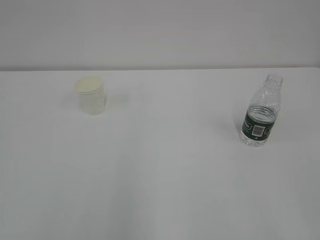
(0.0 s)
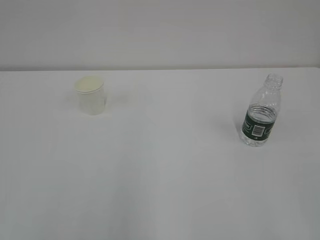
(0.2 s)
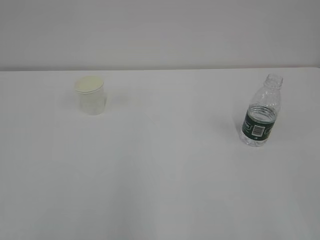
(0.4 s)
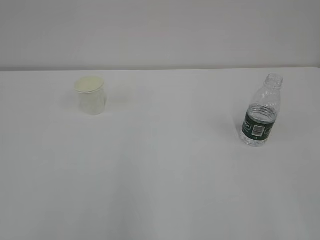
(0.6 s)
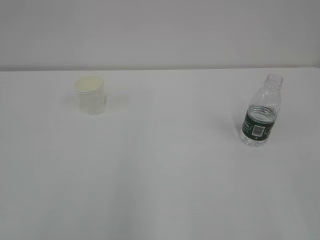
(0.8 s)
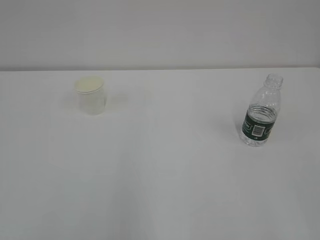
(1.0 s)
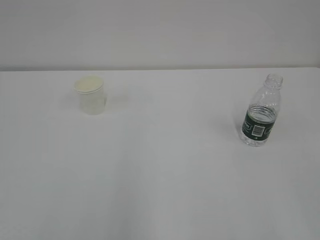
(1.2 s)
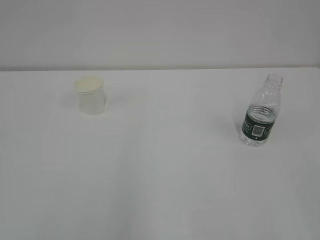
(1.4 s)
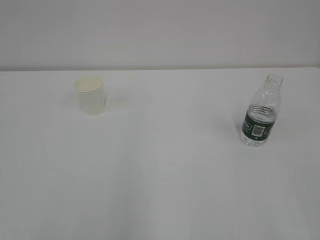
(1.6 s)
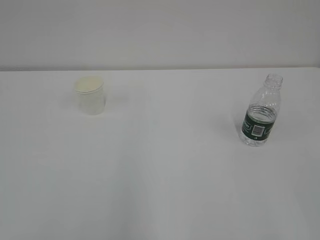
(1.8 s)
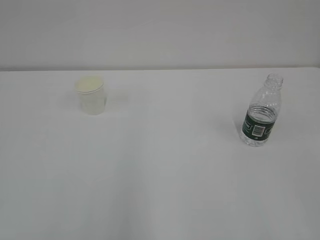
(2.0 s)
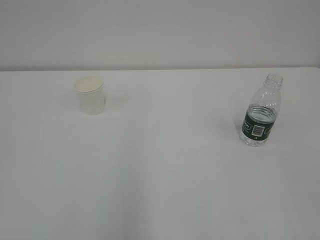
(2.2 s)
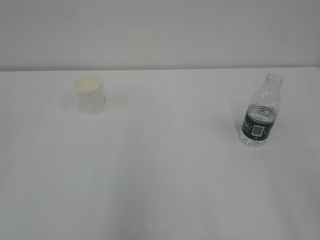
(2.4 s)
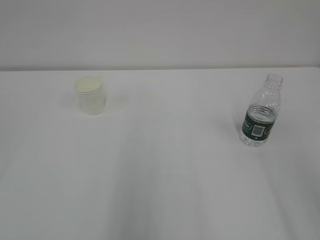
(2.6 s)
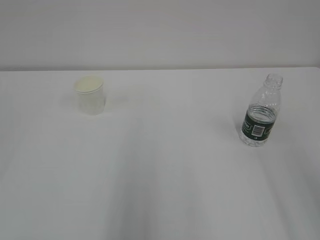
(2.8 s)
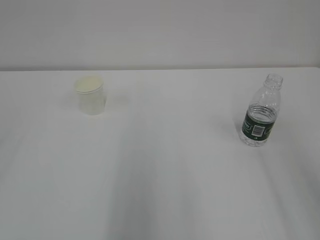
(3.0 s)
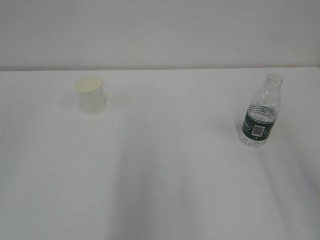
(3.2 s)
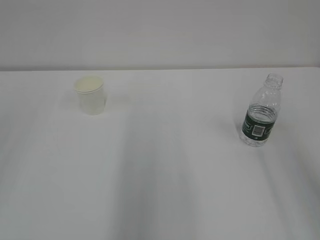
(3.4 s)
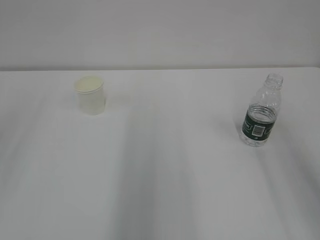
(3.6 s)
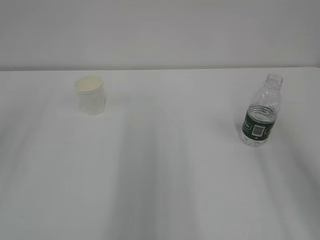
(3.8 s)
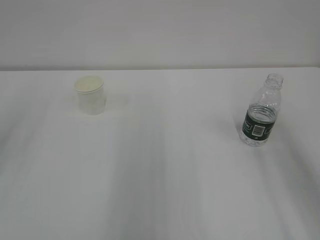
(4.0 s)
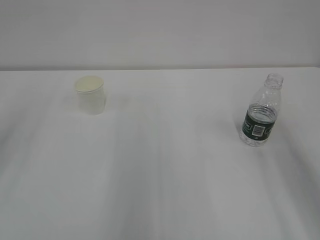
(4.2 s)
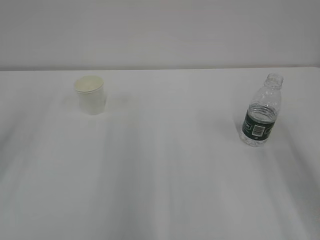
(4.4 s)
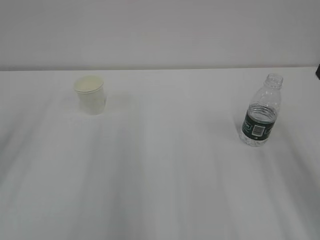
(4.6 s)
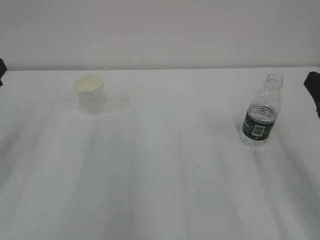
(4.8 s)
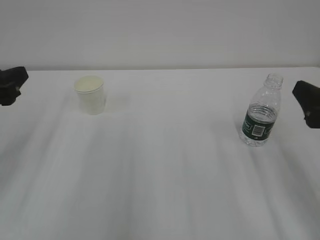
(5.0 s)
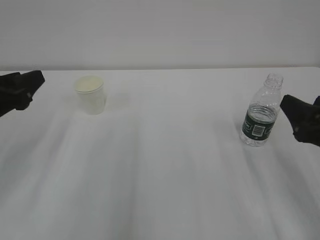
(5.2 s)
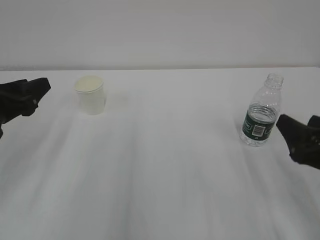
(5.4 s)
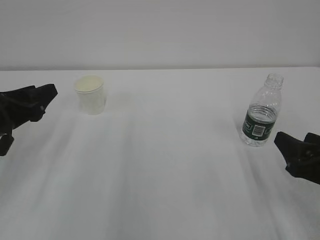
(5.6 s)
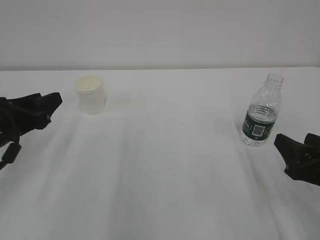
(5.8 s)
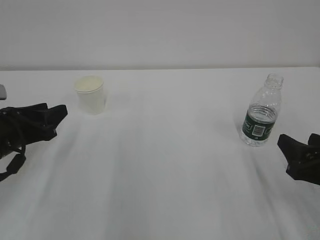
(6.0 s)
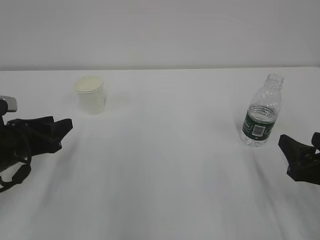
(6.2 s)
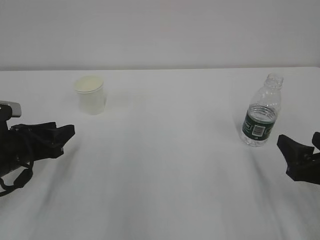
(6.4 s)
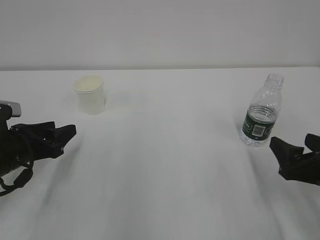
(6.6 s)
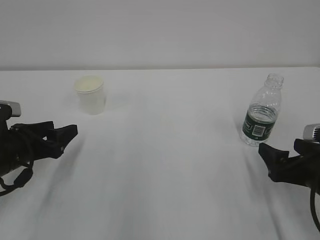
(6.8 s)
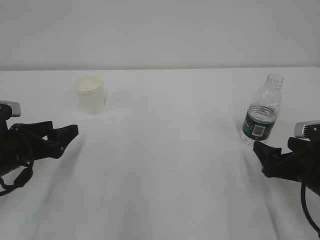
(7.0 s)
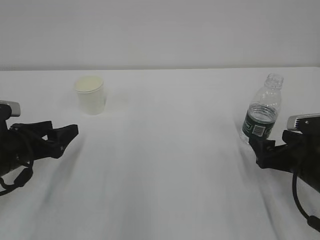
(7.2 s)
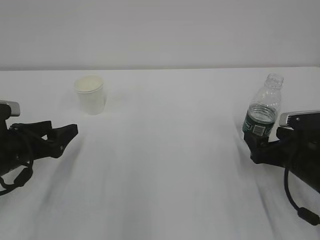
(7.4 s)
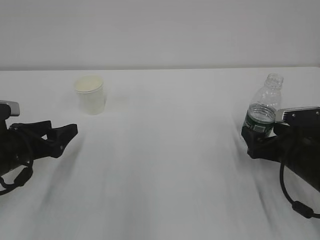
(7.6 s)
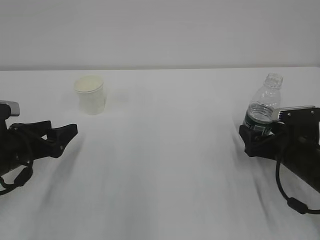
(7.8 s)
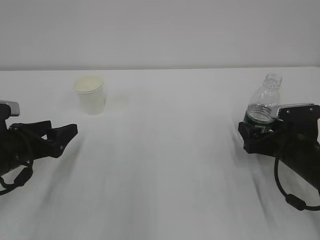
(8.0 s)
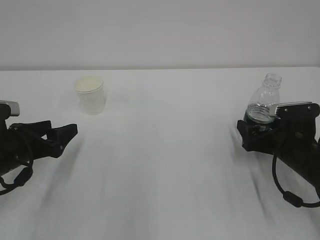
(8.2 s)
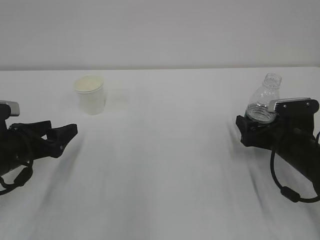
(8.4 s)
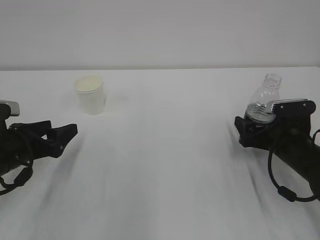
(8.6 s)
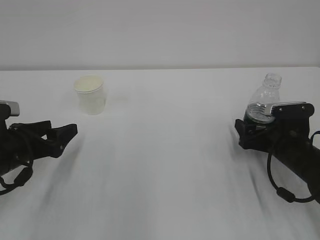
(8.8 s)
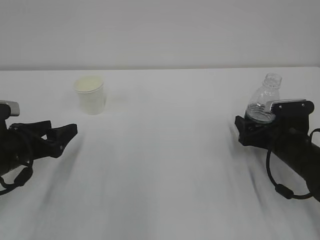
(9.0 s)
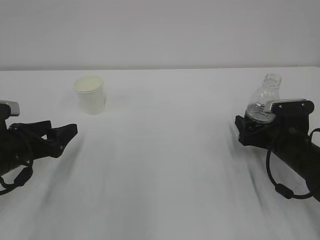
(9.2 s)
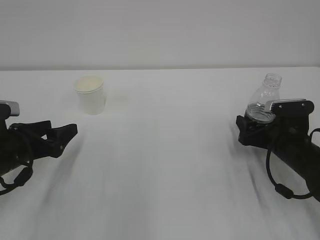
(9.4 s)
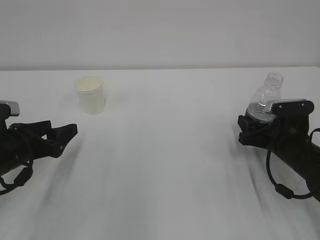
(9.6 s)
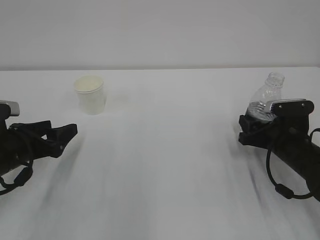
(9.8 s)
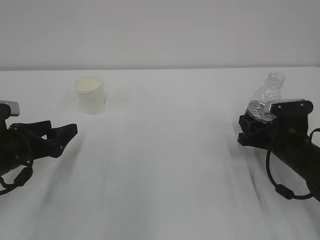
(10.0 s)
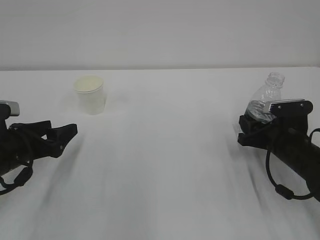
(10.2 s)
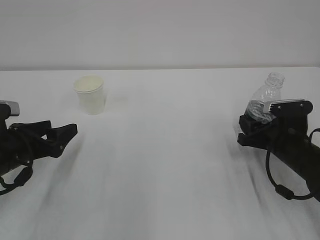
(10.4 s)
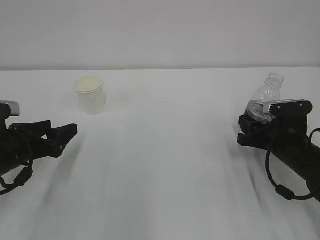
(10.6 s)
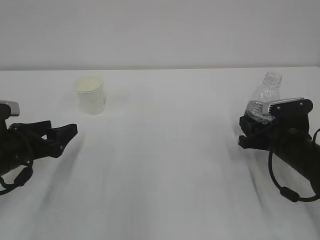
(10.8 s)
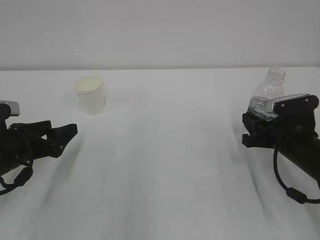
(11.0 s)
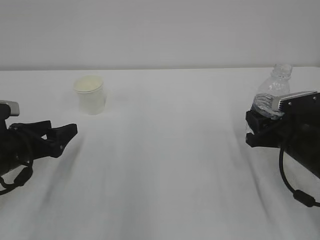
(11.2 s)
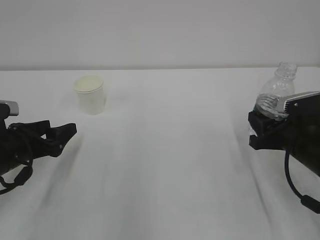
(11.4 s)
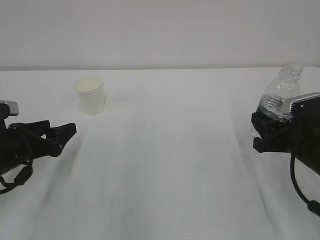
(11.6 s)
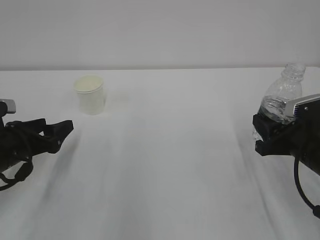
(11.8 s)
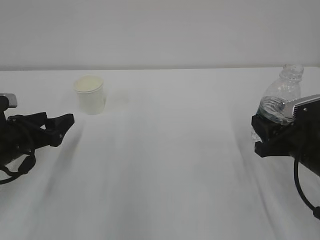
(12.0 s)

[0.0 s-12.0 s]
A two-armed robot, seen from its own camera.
4.4 to 6.0 s: Both grippers travel together downward, roughly 15 cm.
6.0 to 7.6 s: The left gripper opens; the right gripper heads forward and downward, covering roughly 10 cm, and opens up.
7.6 to 9.0 s: There are only small adjustments of the grippers.
9.0 to 10.4 s: The right gripper closes its fingers.
10.4 to 12.0 s: The right gripper shifts approximately 10 cm backward and upward.

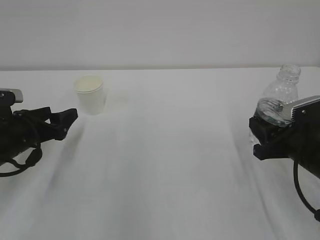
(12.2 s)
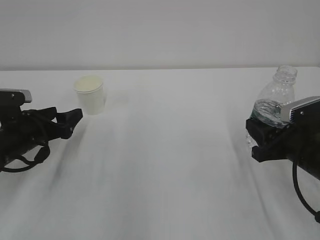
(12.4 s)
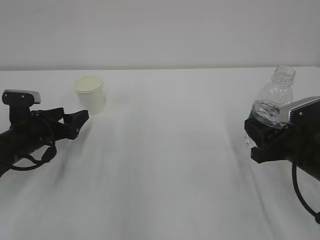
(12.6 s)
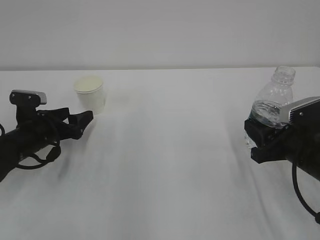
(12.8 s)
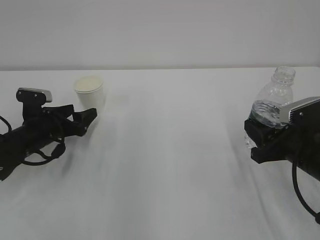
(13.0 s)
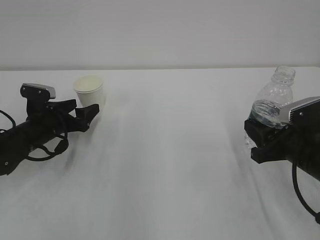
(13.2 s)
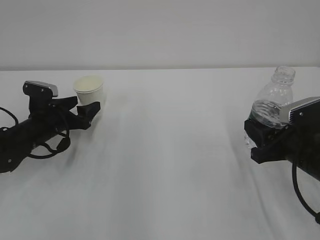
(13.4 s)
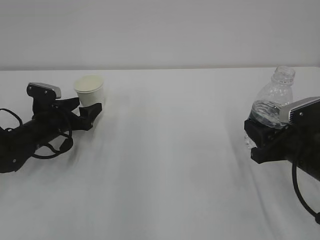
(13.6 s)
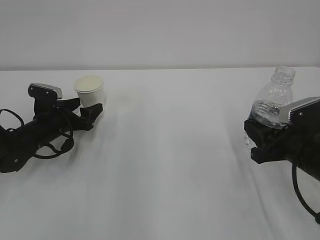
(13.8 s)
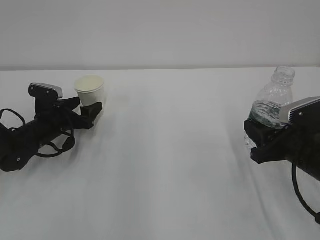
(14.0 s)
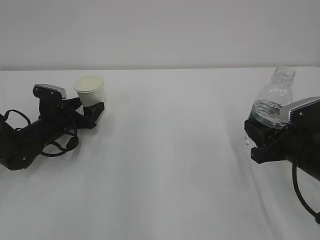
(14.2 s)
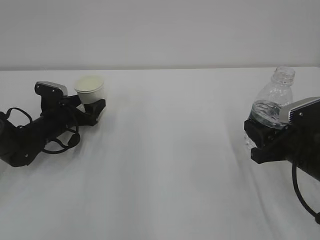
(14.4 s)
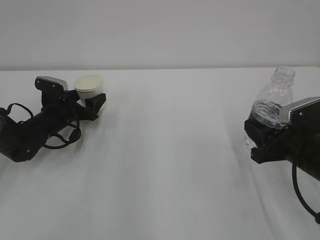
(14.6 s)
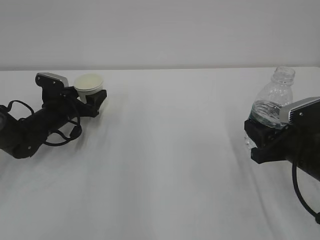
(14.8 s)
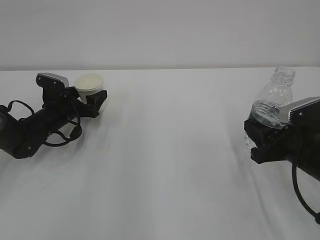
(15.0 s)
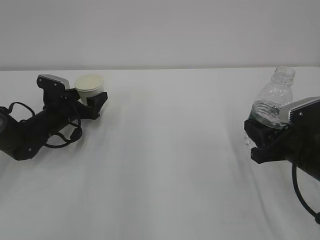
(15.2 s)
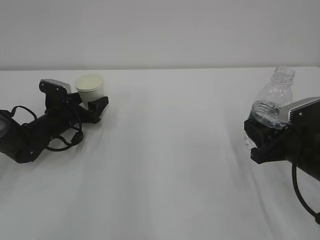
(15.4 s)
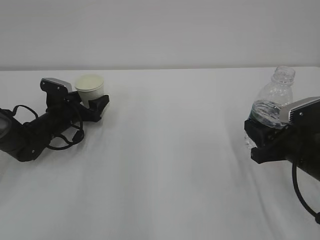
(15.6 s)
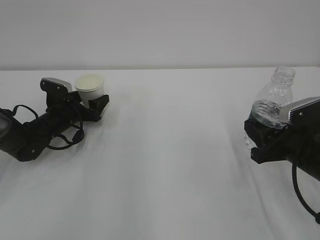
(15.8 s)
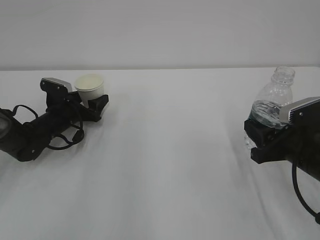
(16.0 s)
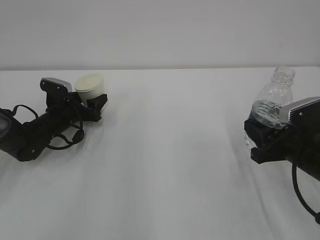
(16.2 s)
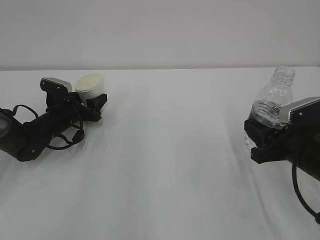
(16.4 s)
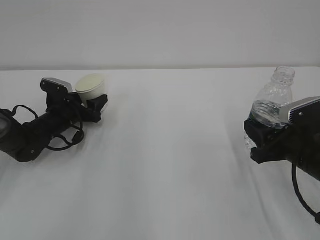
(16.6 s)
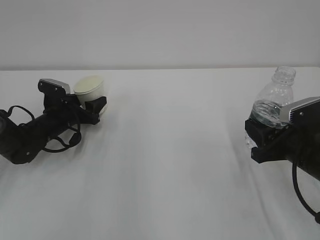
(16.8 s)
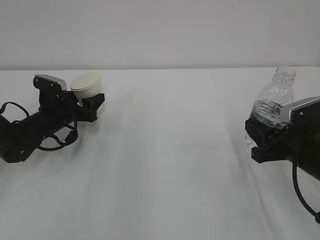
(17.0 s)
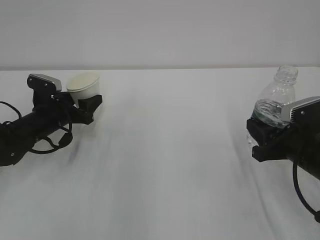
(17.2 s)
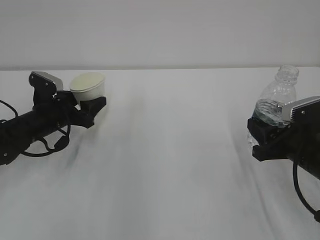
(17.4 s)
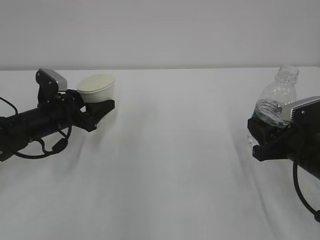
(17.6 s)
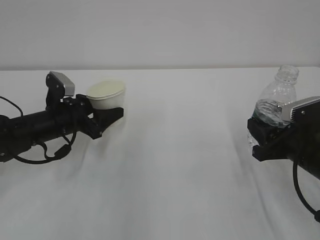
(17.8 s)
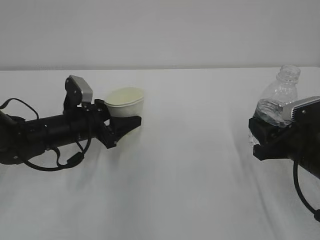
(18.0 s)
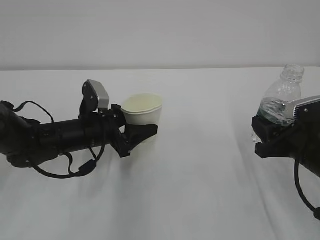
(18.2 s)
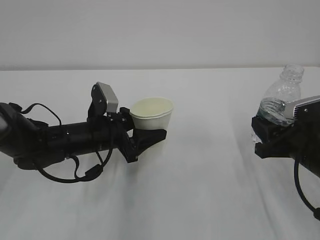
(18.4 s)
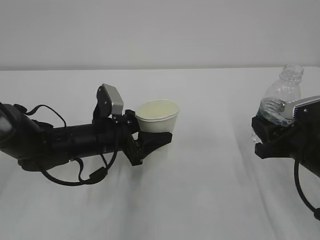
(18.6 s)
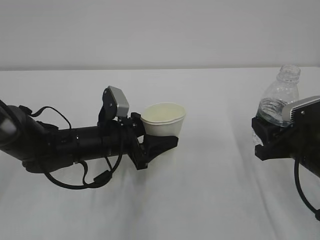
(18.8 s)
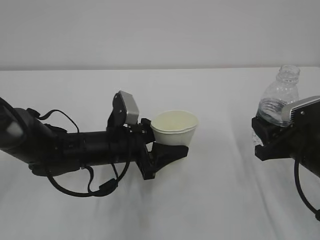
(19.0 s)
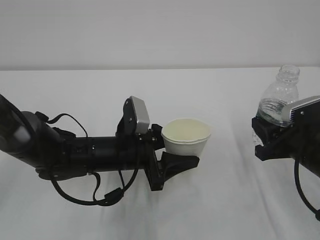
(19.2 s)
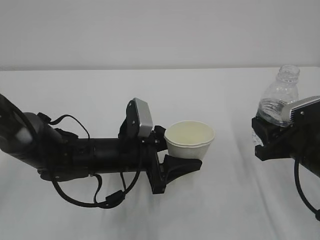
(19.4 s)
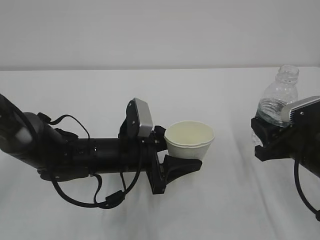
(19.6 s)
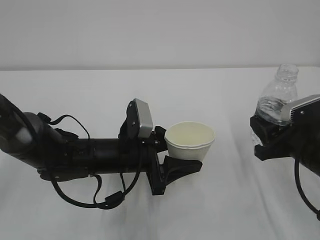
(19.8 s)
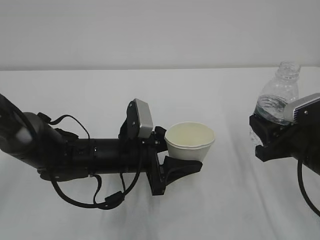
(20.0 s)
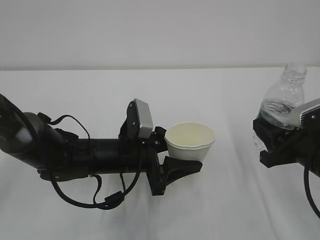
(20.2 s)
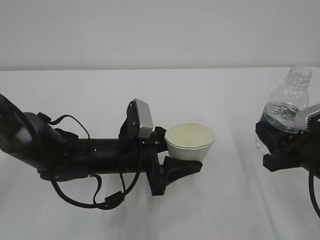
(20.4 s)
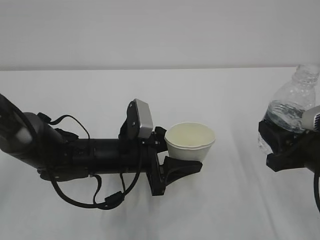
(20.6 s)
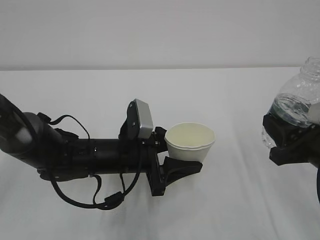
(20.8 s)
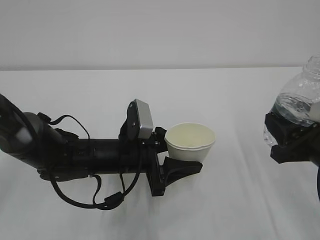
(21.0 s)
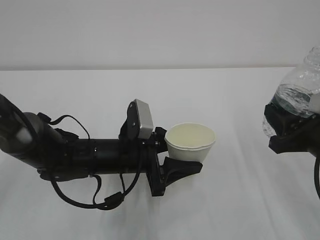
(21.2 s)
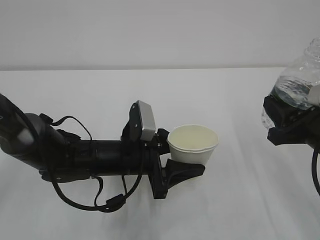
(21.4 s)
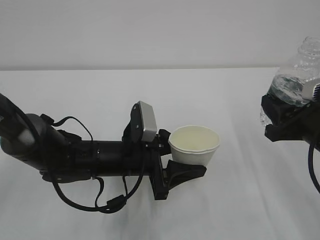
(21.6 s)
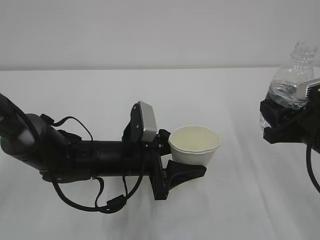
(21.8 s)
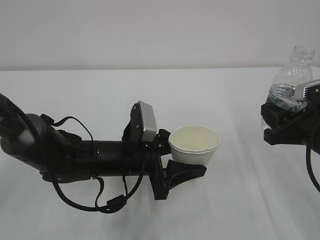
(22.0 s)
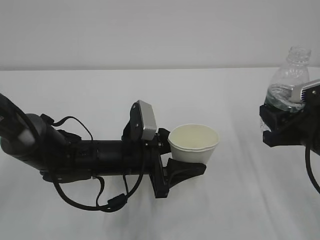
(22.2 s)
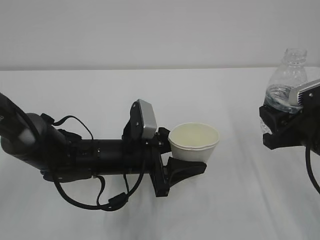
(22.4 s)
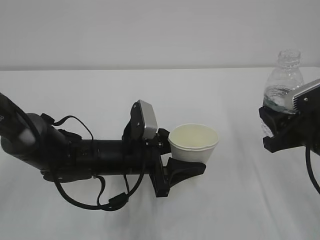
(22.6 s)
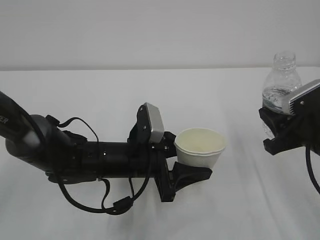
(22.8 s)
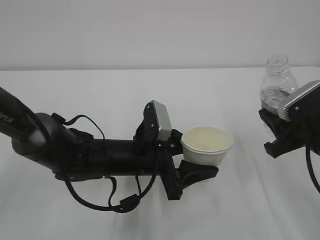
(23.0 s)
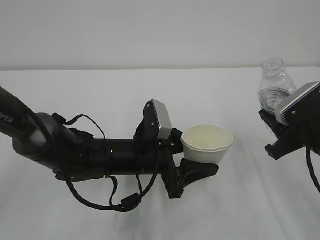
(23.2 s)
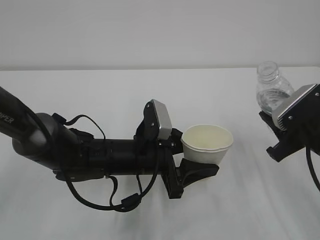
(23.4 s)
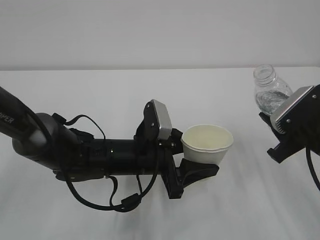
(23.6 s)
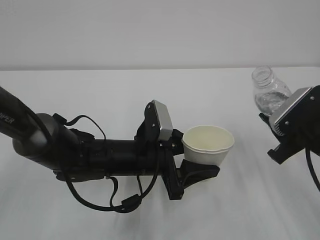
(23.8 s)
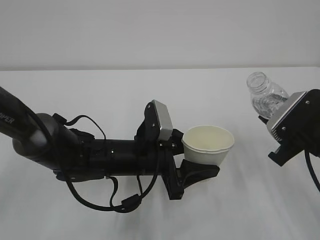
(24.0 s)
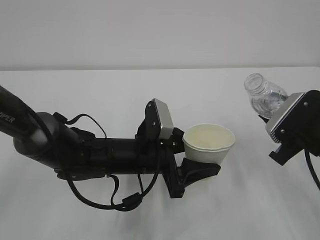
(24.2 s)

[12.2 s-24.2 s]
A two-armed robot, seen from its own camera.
12.2 to 13.8 s: The left gripper shifts some 10 cm forward and downward.
13.8 to 15.2 s: The grippers move only a little.
15.2 to 16.6 s: The left gripper closes its fingers.
16.6 to 18.2 s: The left gripper heads backward, to the right and upward, covering about 15 cm.
18.2 to 19.8 s: The left gripper shifts about 10 cm to the right and backward.
19.8 to 22.6 s: The grippers make only small movements.
